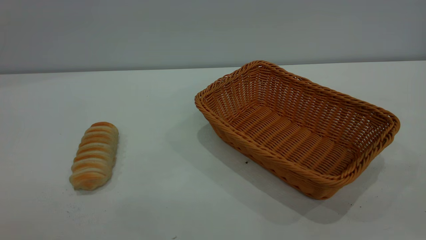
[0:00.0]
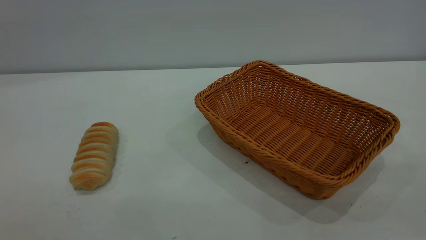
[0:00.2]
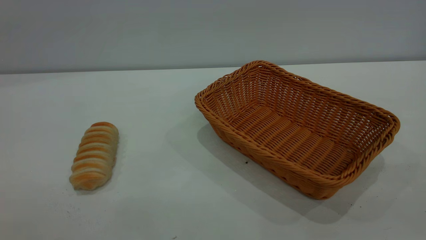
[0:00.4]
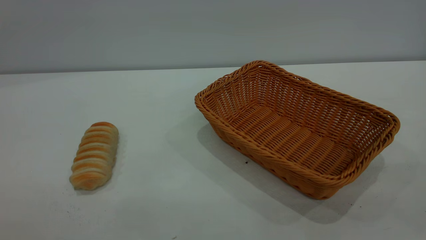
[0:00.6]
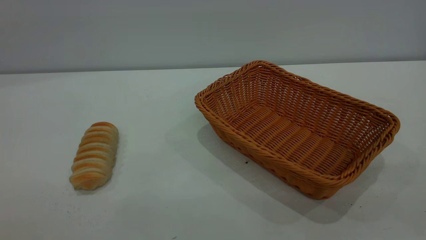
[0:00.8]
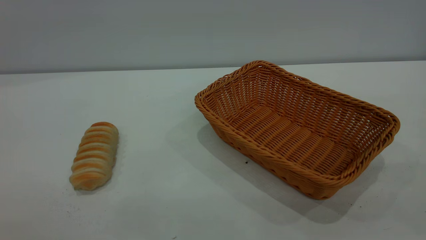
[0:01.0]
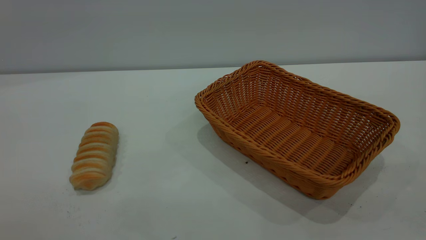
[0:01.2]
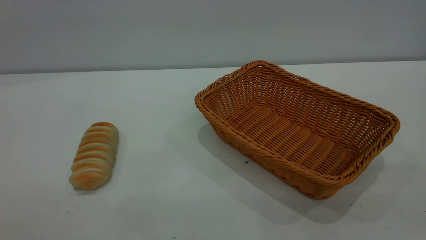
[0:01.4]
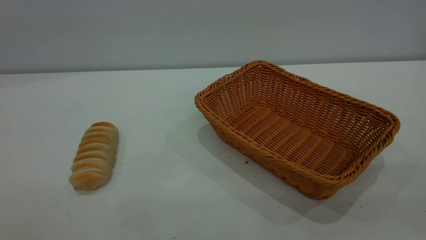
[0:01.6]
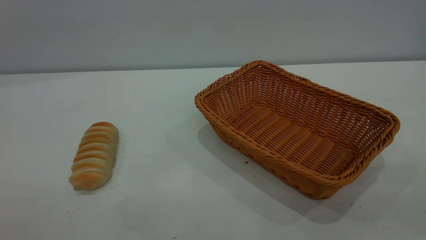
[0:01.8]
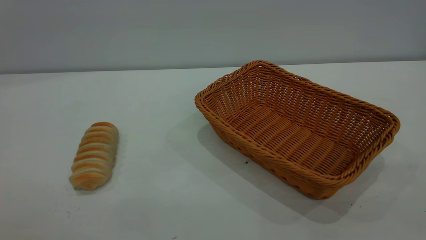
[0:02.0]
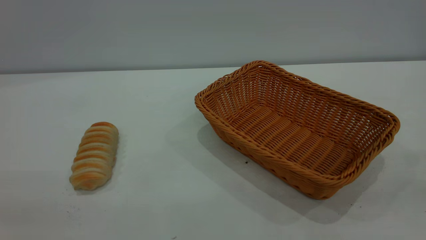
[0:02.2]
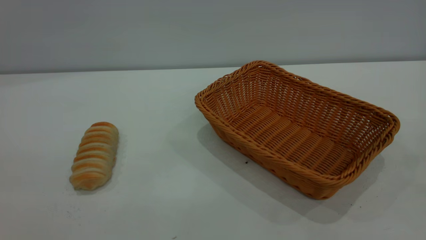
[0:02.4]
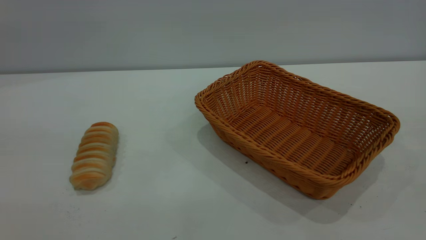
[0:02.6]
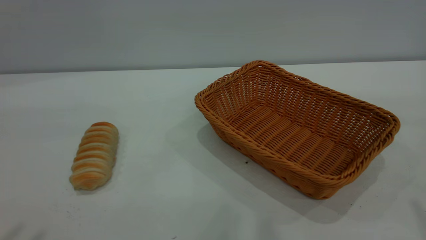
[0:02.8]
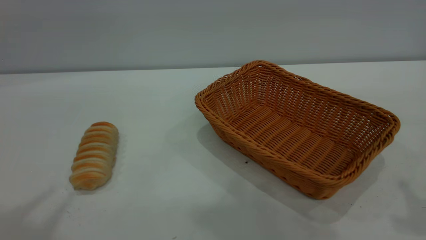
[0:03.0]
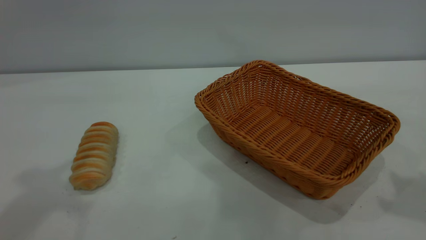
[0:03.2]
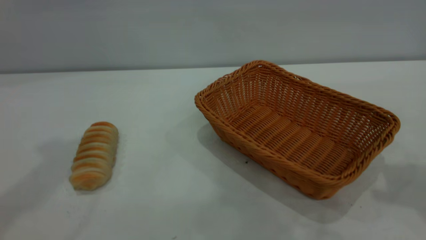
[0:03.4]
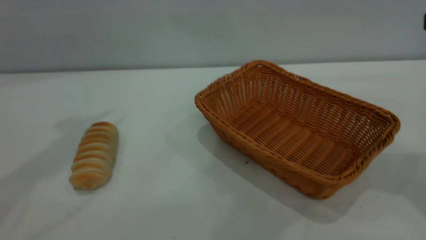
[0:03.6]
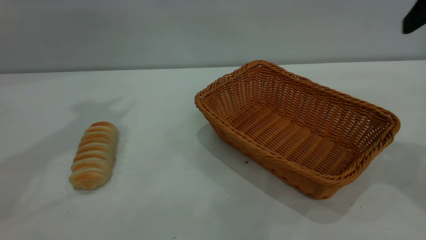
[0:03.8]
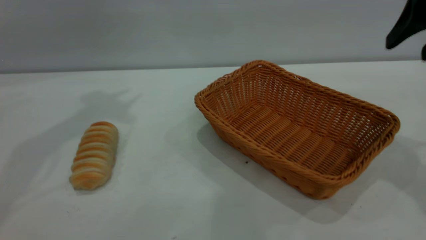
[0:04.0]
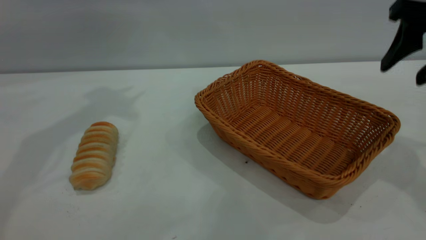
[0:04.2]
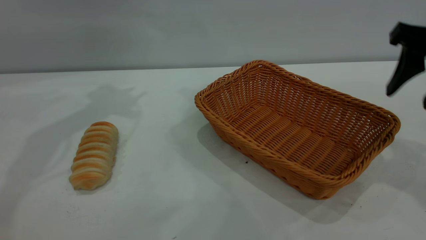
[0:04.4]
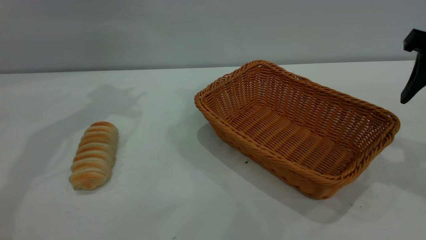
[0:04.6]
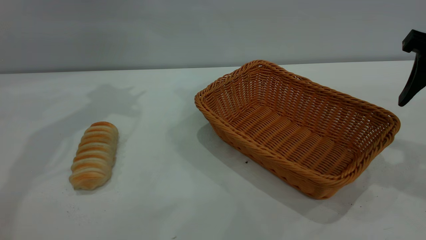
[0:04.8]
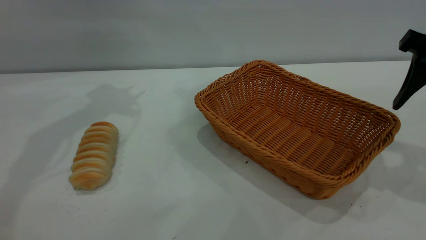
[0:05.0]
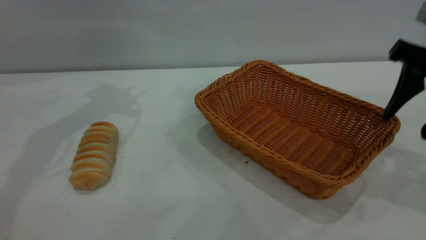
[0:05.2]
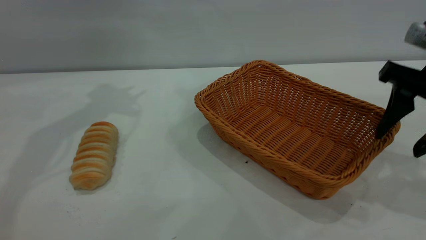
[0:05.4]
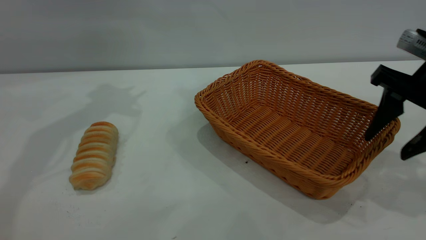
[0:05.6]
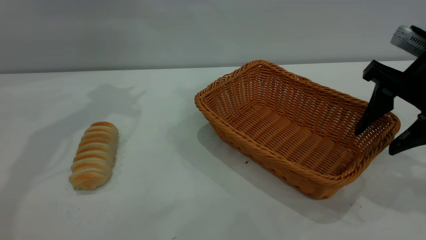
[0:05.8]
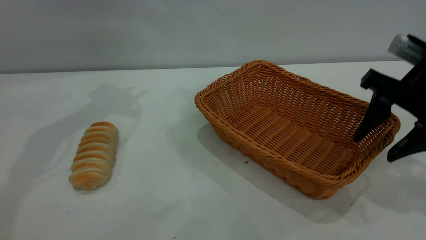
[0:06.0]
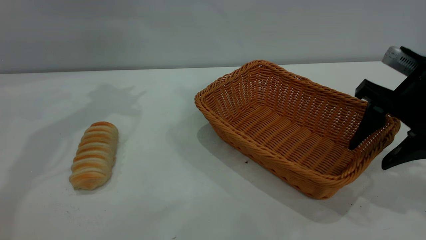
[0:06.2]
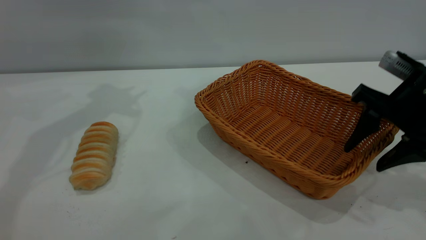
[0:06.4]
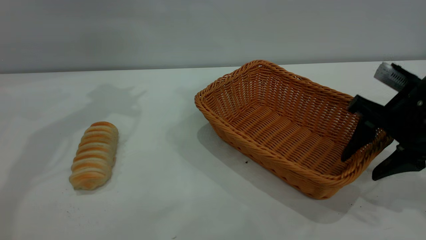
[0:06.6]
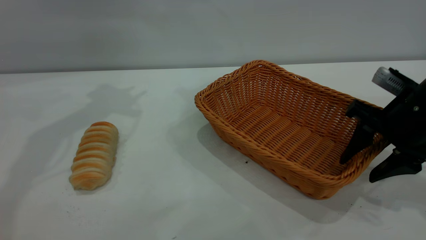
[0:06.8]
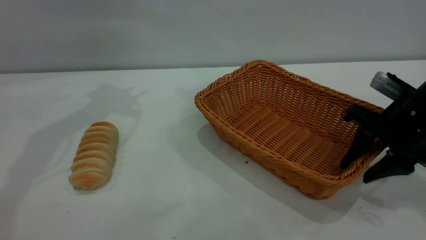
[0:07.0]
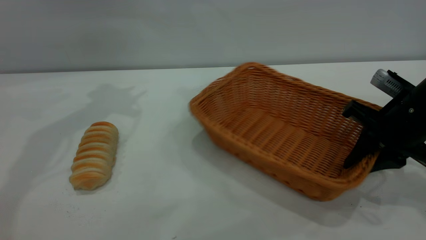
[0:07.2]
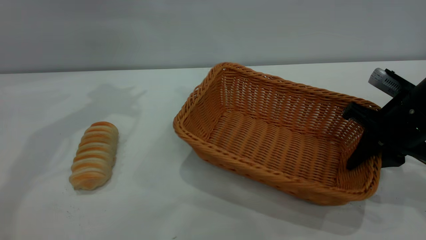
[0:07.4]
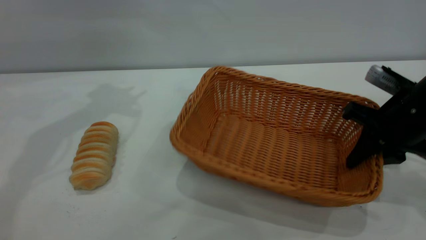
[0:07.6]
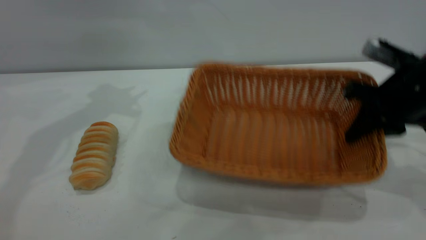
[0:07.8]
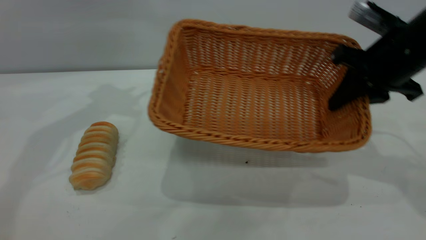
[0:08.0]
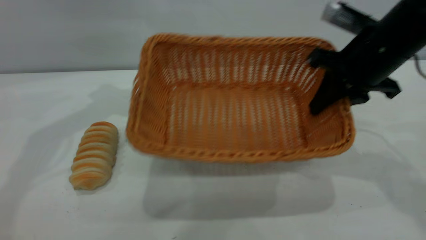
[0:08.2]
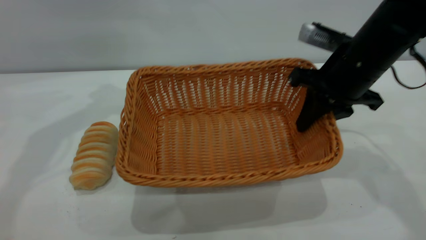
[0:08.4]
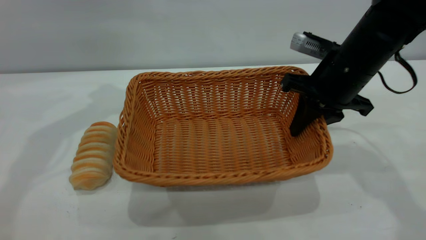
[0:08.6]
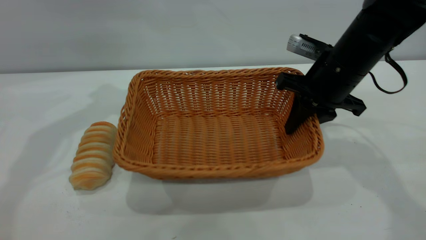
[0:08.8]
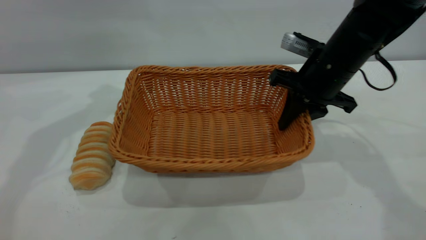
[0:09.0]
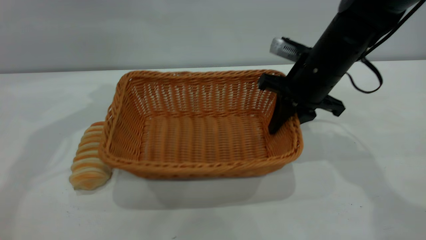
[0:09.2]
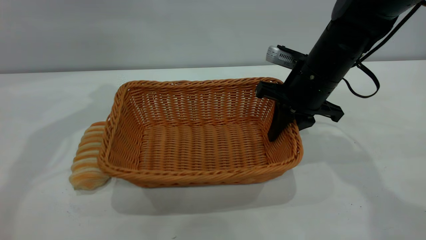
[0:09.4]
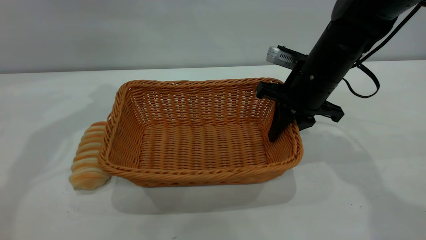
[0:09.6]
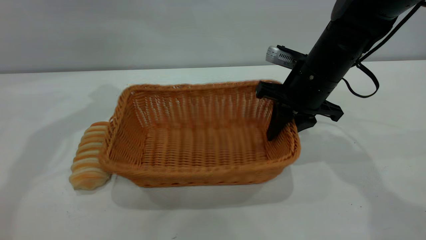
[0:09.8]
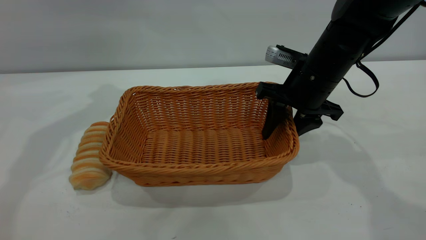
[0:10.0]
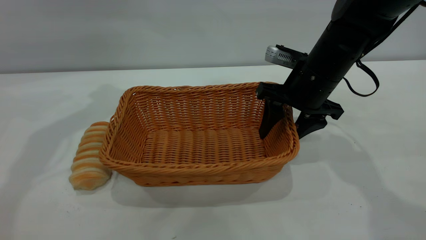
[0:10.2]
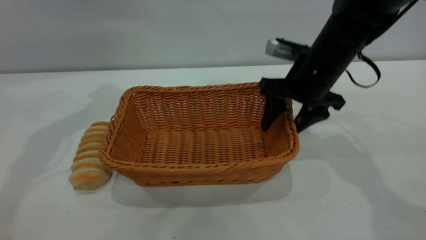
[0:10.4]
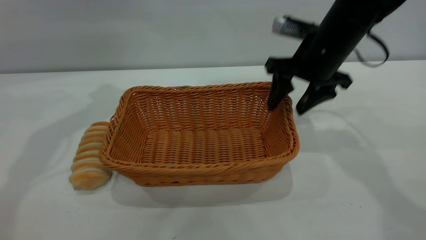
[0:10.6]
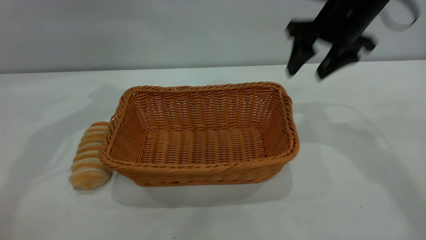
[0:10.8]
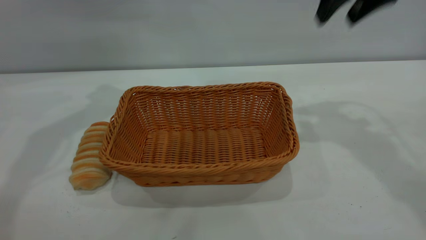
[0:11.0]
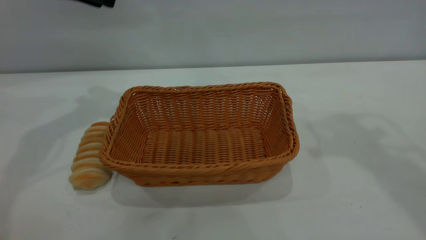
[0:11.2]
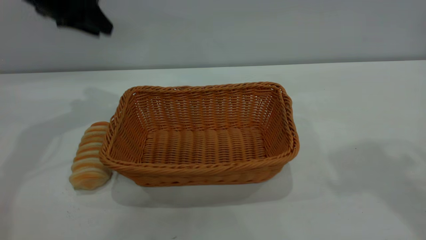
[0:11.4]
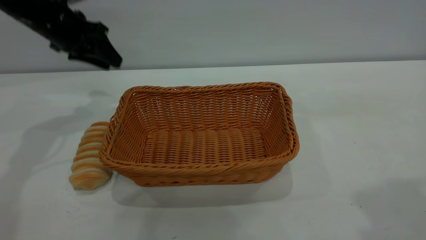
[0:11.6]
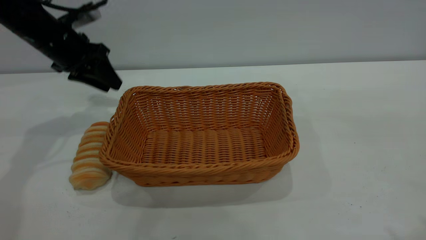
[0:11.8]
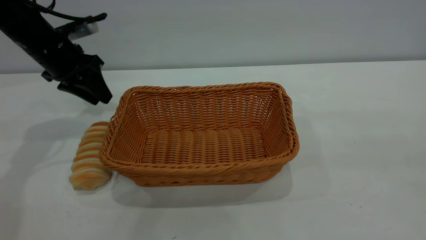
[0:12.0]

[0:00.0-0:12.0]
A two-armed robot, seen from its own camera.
Task of the whole recording: One hand grasps the yellow basket and places it in the middle of the table, while the other hand picks up the long bread and puts it into the yellow basket.
Step, 0:00.0 to 0:10.6: Move the basket to the center of view.
0:00.0 to 0:01.6: The two grippers keep their place.
0:03.0 to 0:04.4: The right gripper travels forward and downward by some 15 cm.
0:04.4 to 0:06.0: The right gripper goes roughly 5 cm downward.
0:06.0 to 0:07.6: The right gripper moves about 5 cm, and closes.
0:07.6 to 0:09.0: The right gripper heads to the left and forward, covering about 15 cm.
0:09.0 to 0:10.4: The right gripper opens.
0:10.4 to 0:12.0: The left gripper is displaced downward by roughly 15 cm. Meanwhile the right gripper travels backward and upward by some 40 cm.

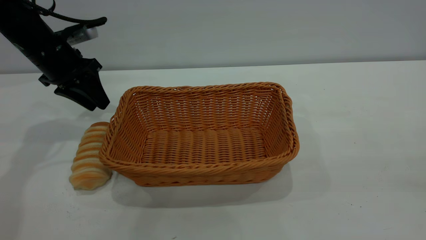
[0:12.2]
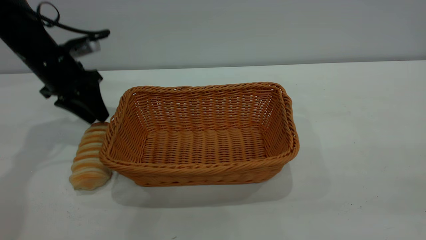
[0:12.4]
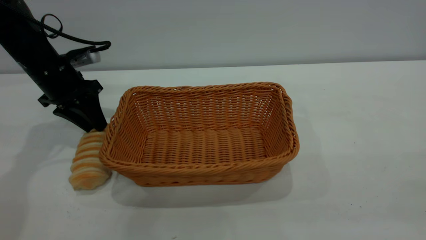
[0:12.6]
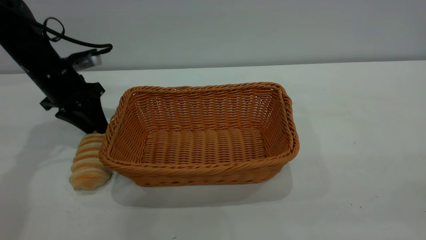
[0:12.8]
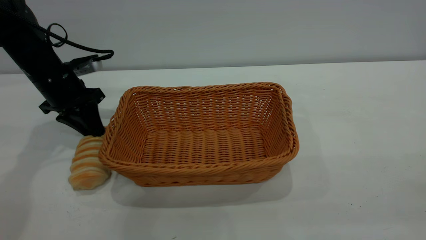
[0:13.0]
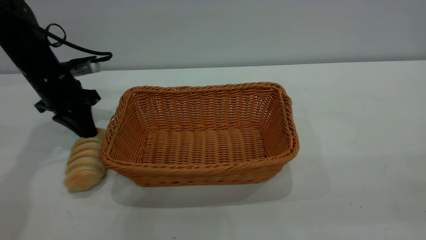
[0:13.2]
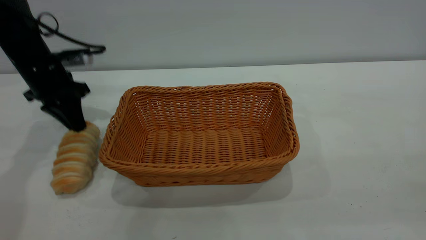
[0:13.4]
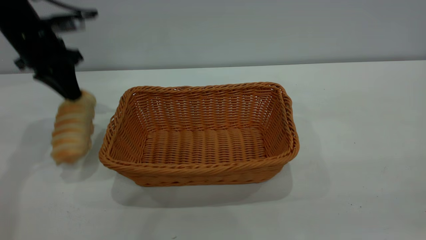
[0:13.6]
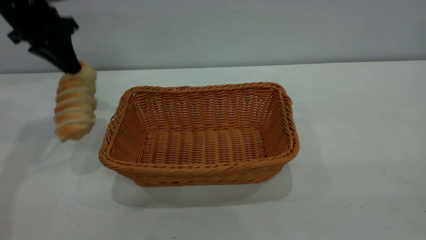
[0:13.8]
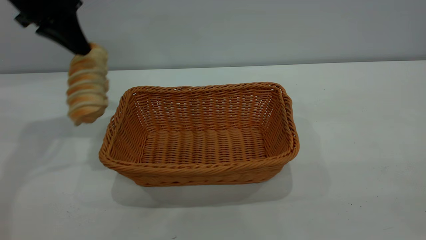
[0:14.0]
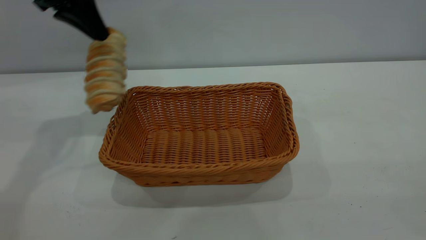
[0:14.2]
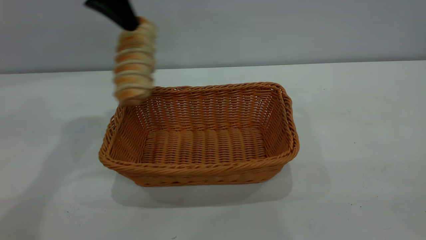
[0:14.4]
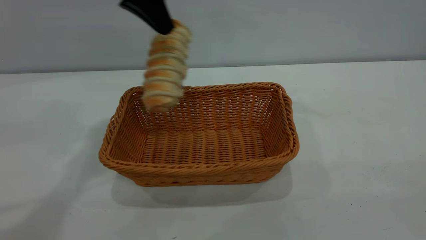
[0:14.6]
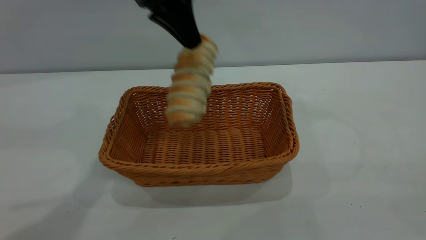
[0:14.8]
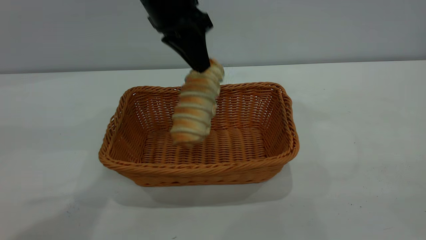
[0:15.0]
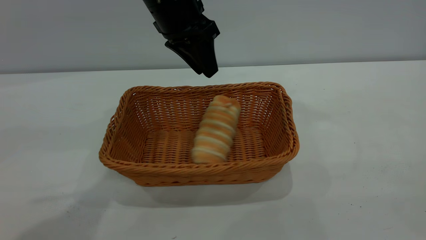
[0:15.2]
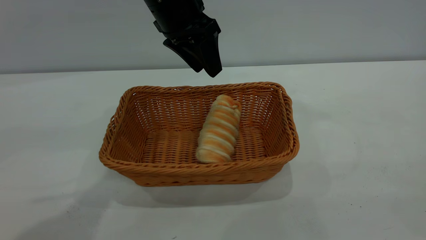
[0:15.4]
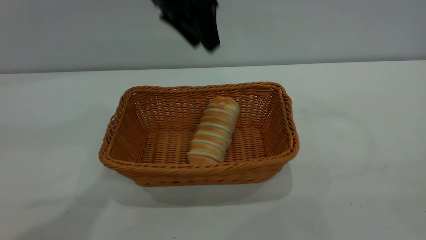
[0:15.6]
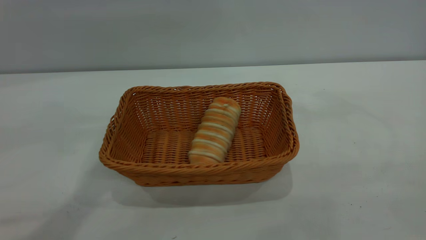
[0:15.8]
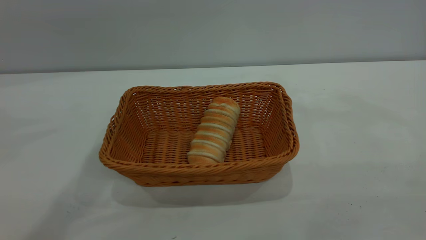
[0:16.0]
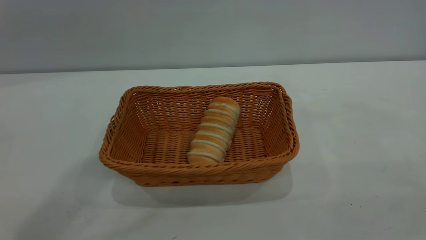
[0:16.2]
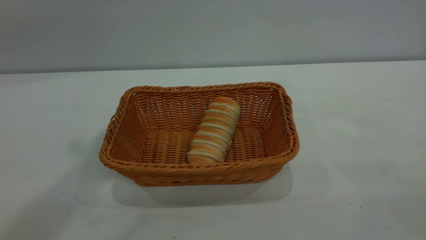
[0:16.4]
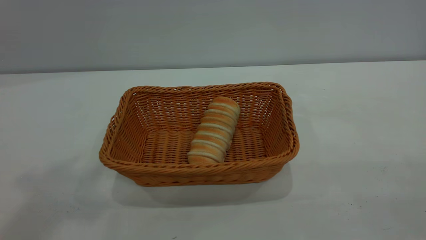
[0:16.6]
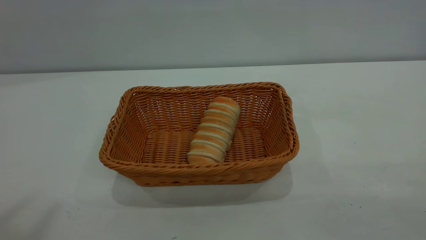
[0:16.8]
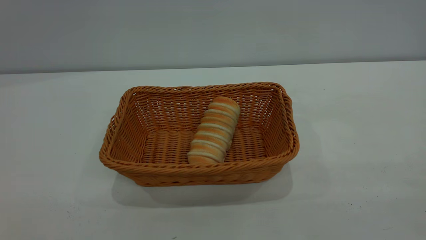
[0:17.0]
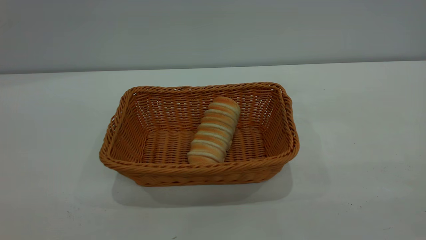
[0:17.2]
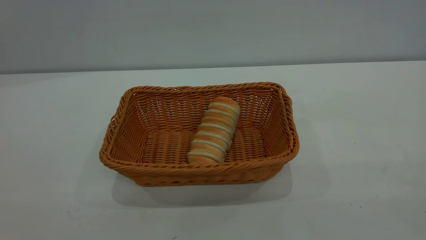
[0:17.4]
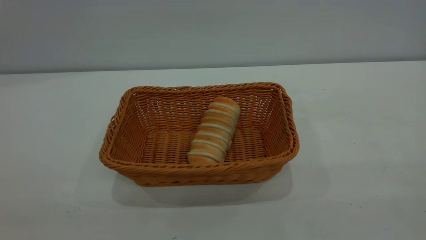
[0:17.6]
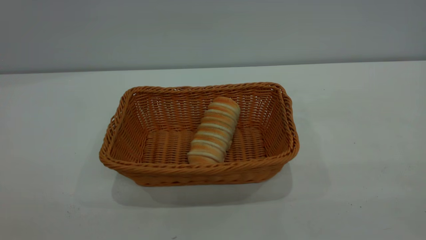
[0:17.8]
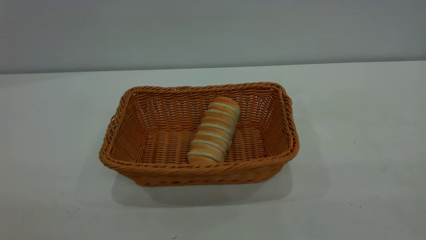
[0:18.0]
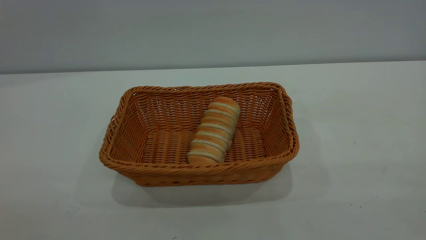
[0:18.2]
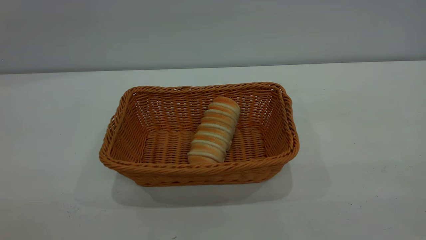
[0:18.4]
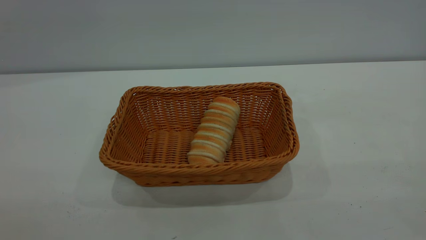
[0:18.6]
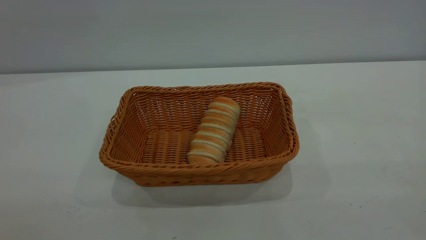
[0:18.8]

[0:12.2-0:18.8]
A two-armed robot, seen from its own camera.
Task of the whole recording: One hand grasps the yellow basket and places it in the middle of the table, while the other hand picks up the long bread and puts it into the yellow basket.
Step, 0:13.8 to 0:15.4: place the bread into the basket.
0:12.2 to 0:13.8: The left gripper heads upward, covering about 10 cm, and closes its fingers.
0:13.8 to 0:15.4: The left gripper moves to the right, about 20 cm, and opens up.
0:15.4 to 0:17.2: The left gripper heads backward, upward and to the left, covering approximately 60 cm.
